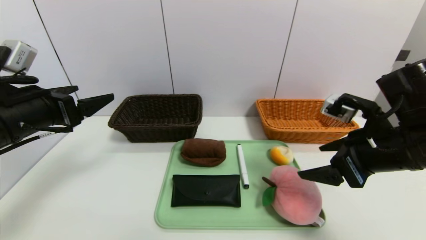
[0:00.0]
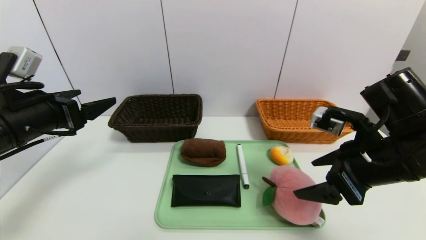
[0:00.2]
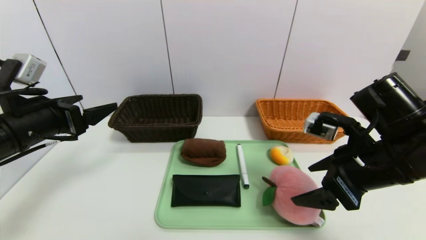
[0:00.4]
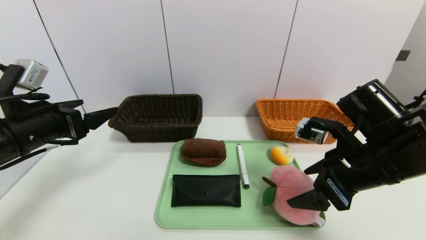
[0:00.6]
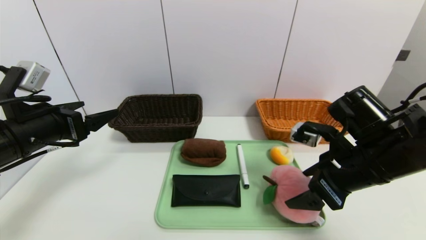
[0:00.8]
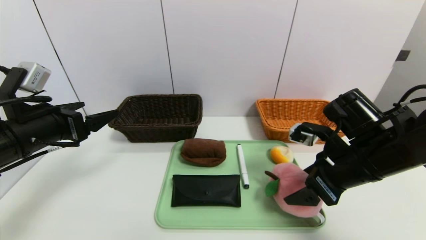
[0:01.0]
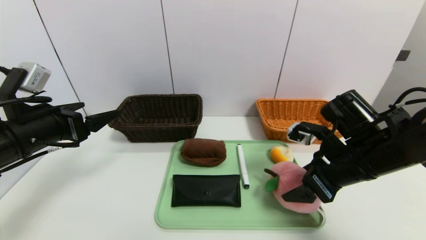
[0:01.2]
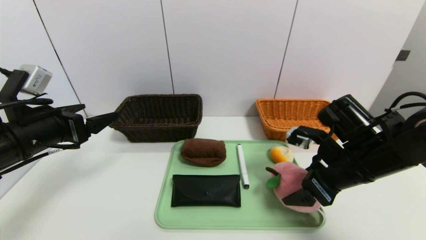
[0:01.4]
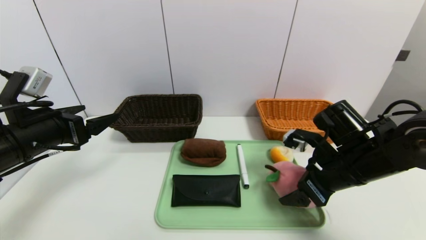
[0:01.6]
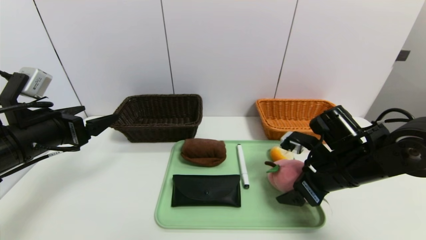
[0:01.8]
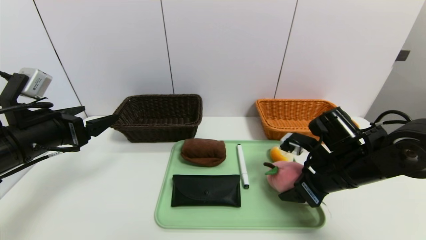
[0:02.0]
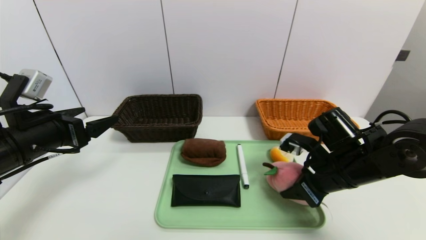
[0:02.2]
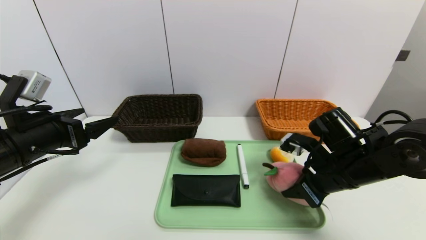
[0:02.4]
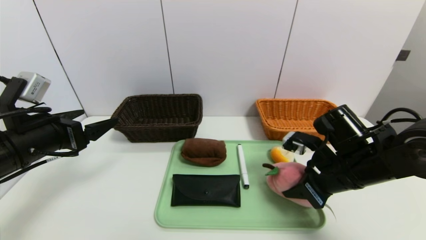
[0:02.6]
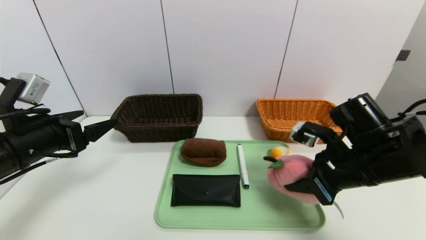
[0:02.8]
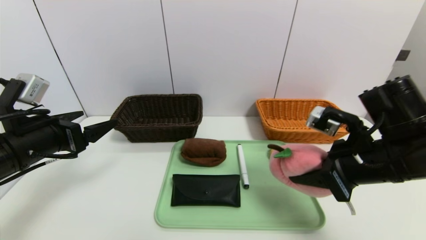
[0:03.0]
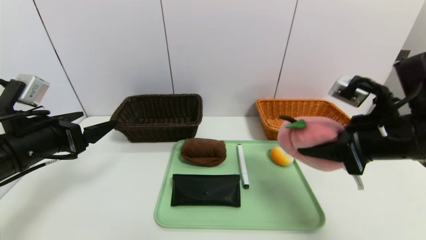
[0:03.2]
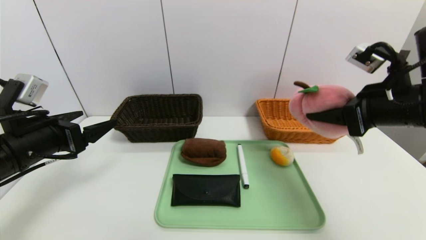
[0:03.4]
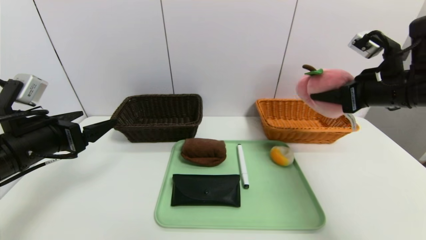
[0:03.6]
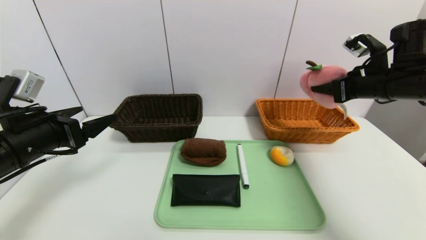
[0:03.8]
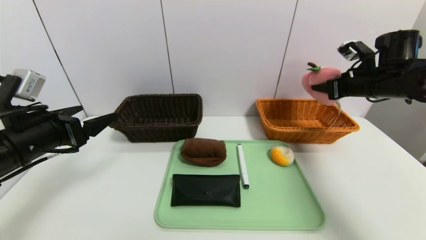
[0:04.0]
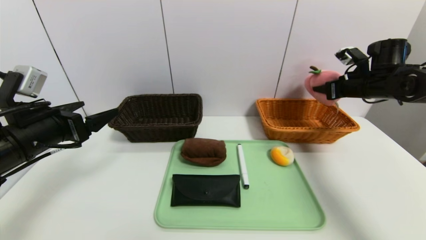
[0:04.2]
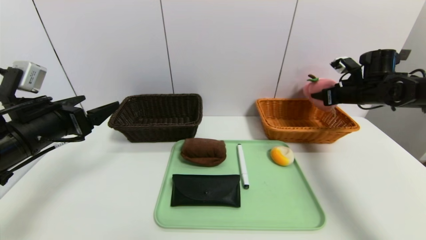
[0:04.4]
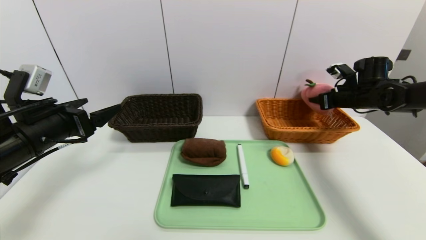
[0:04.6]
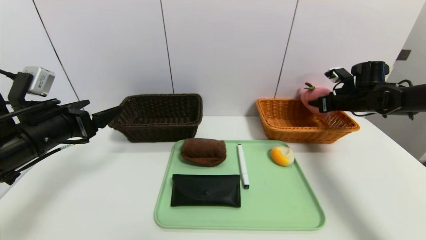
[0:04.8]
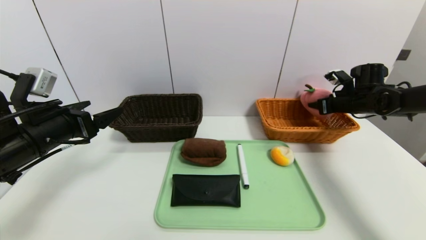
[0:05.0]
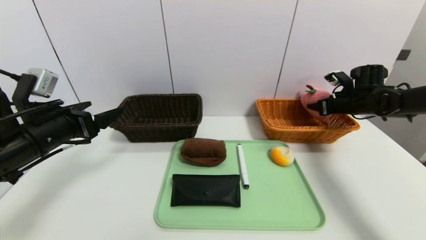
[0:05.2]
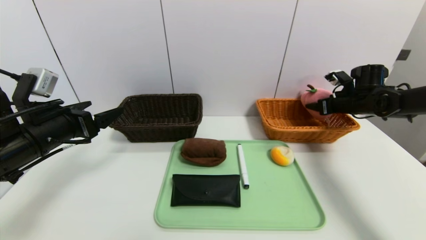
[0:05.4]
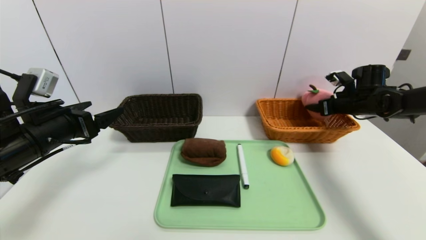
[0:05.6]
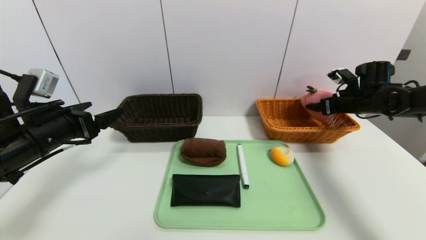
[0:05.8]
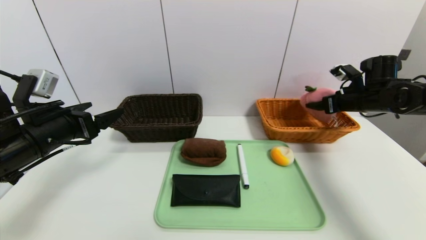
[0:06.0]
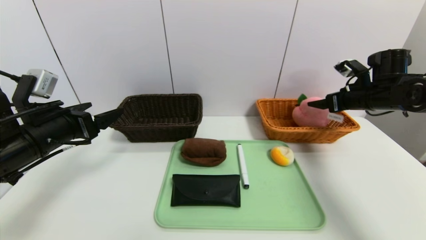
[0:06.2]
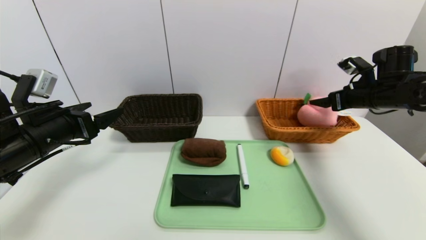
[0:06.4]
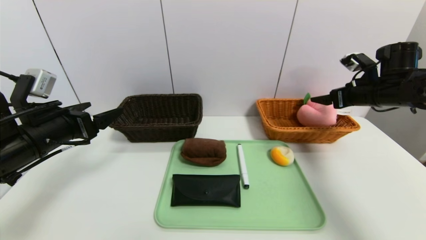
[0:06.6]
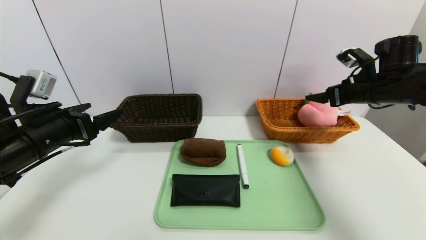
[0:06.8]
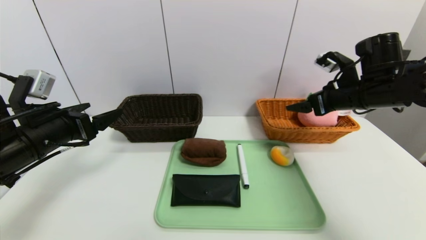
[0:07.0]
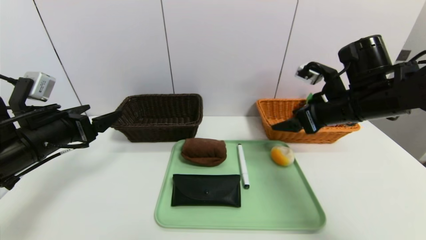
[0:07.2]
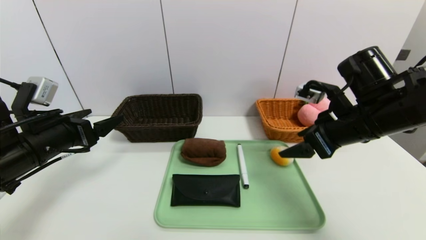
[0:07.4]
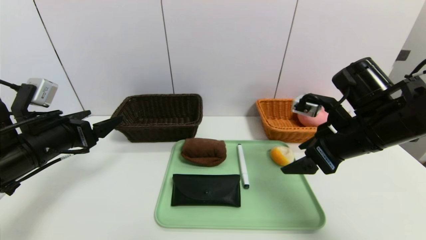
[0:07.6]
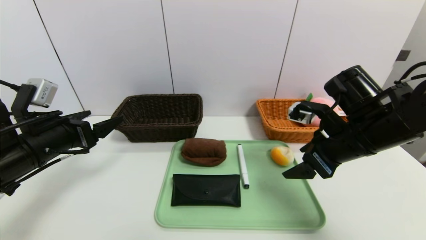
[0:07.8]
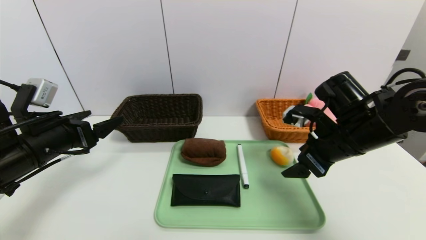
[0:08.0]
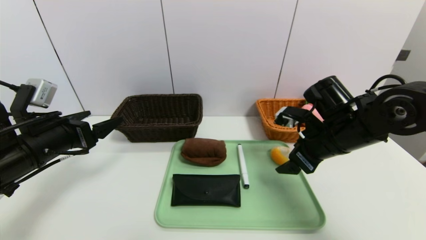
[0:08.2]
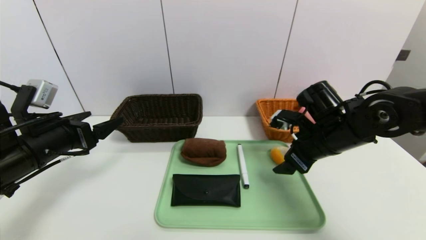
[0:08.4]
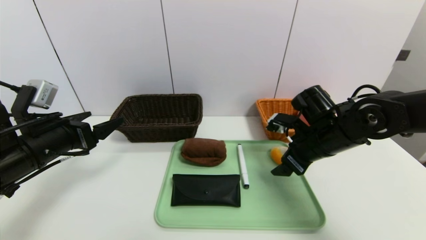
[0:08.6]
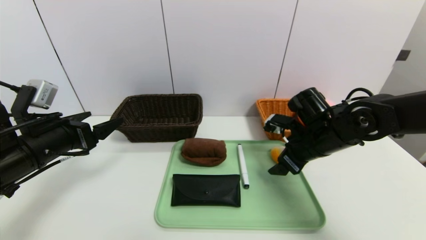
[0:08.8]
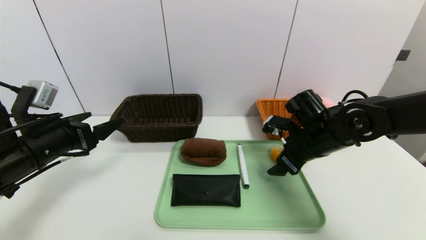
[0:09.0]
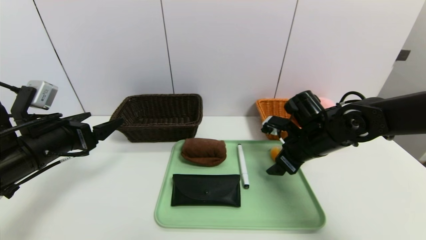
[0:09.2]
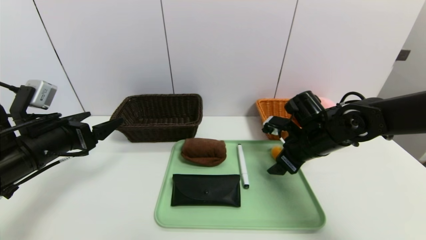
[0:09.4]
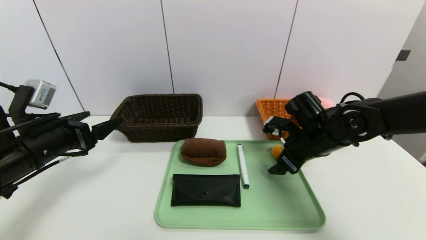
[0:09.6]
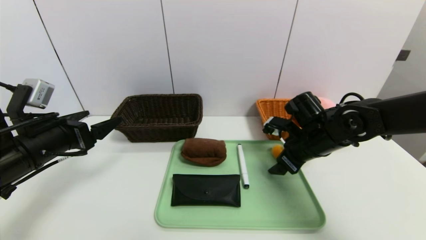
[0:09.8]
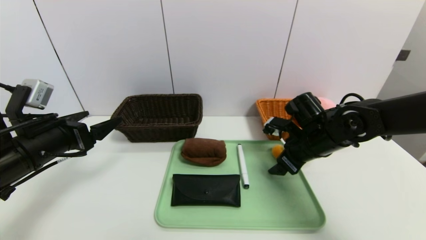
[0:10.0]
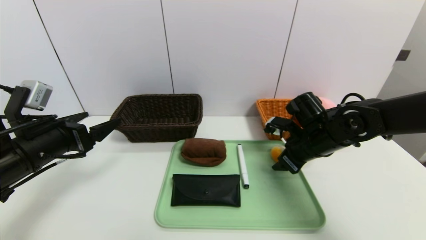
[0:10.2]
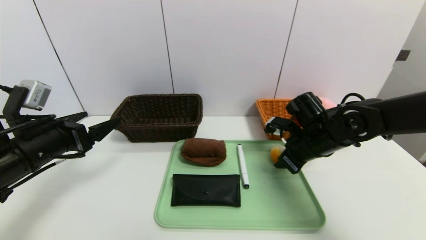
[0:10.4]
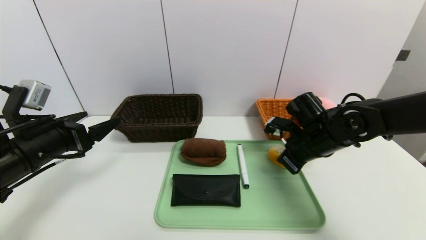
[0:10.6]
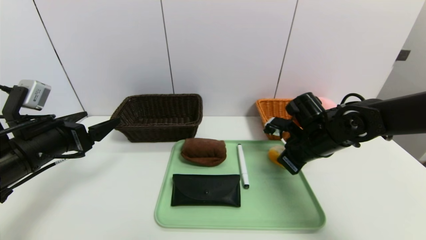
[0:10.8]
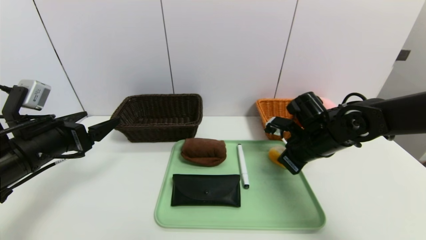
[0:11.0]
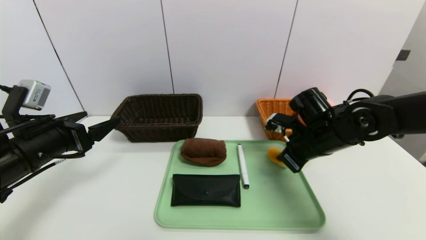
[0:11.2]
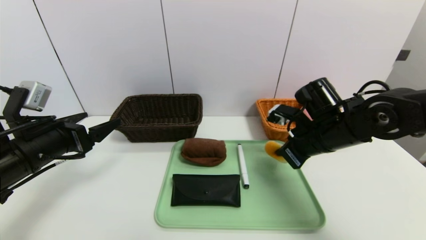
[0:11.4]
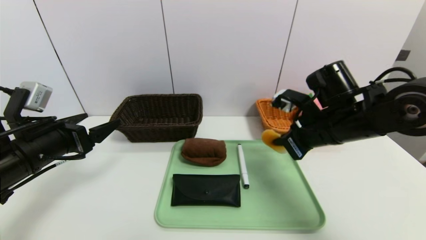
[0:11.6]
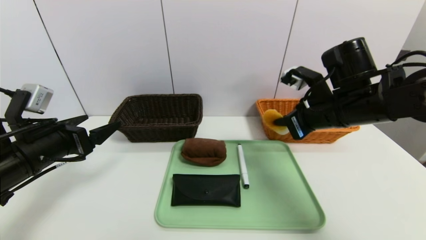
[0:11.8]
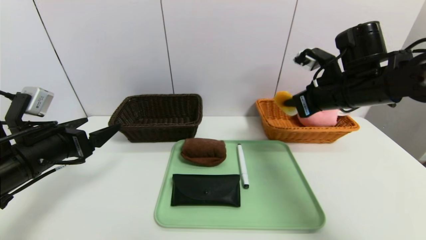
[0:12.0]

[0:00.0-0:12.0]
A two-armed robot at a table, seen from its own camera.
Task of the whole recording: place the food in the right basket with the right gripper, and place the non food items in the left basket with the left gripper.
Step, 0:00.0 to 0:06.6: Grasp the peach doll and put it in the right basket.
0:00.0 to 0:01.6: The right gripper is displaced downward by some 5 cm.
0:01.6 to 0:03.0: The right gripper is displaced upward by roughly 5 cm, and closes.
0:03.0 to 0:04.4: The right gripper goes roughly 25 cm forward and to the right.
0:04.4 to 0:06.0: The right gripper opens.
0:06.0 to 0:07.6: The right gripper moves backward and to the left, approximately 20 cm.
0:07.6 to 0:09.0: The right gripper is displaced downward and forward by roughly 10 cm.
0:09.0 to 0:10.4: The right gripper closes up.
0:10.4 to 0:12.0: The right gripper is displaced upward by some 10 cm, and closes up.

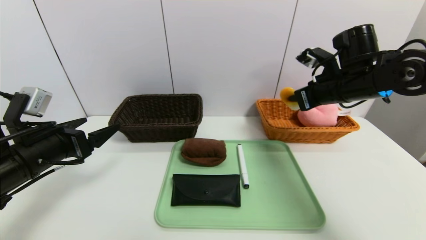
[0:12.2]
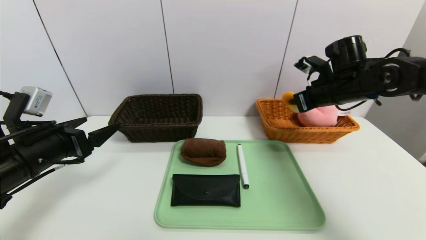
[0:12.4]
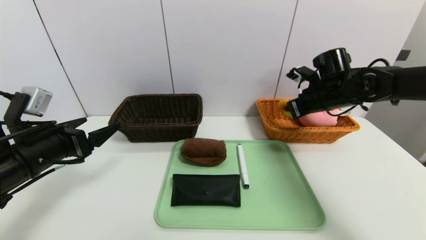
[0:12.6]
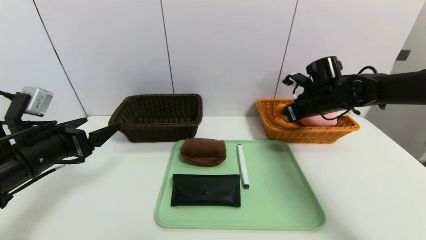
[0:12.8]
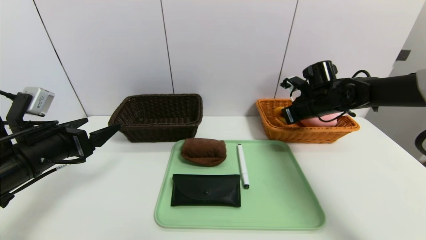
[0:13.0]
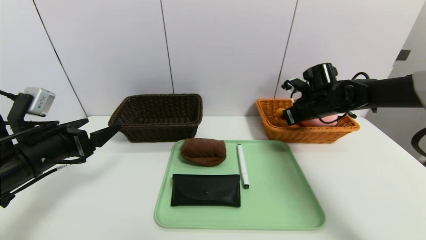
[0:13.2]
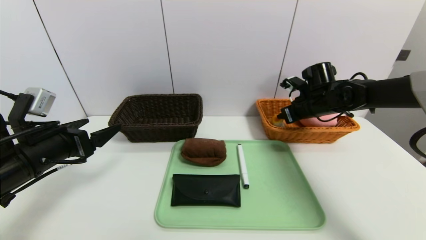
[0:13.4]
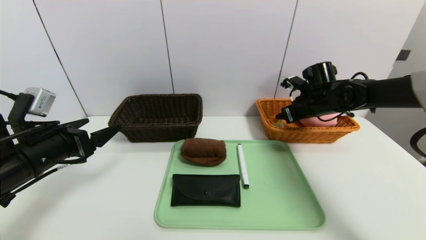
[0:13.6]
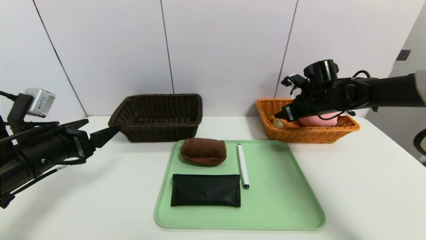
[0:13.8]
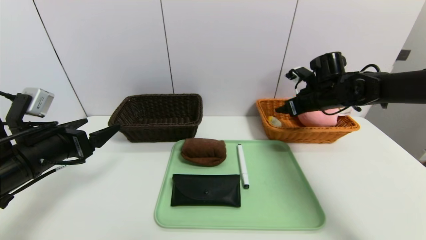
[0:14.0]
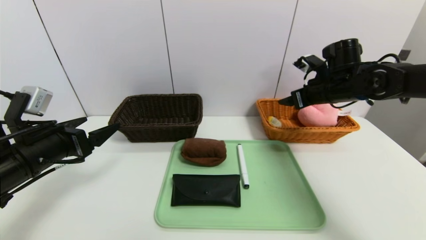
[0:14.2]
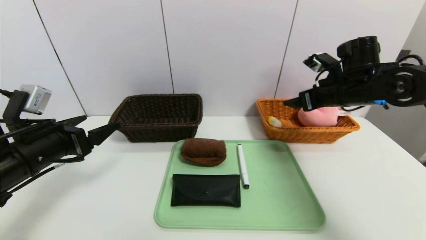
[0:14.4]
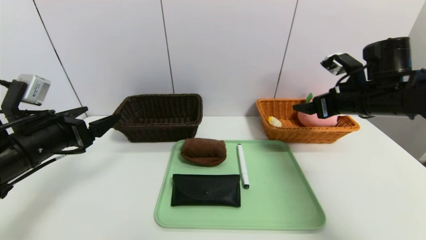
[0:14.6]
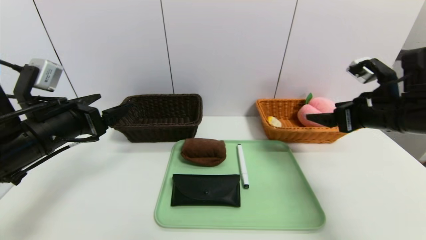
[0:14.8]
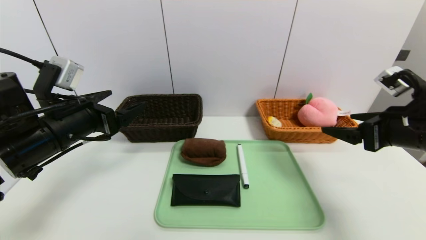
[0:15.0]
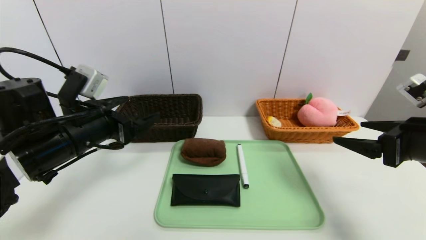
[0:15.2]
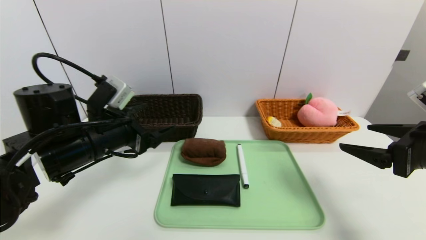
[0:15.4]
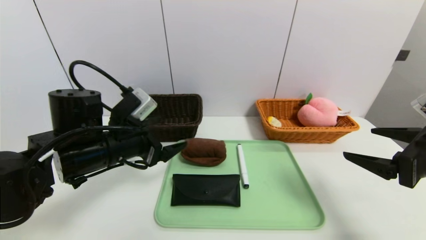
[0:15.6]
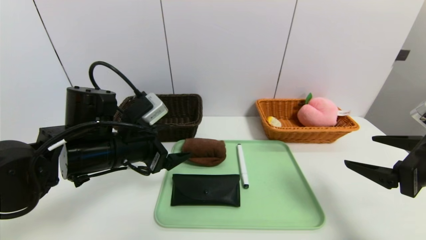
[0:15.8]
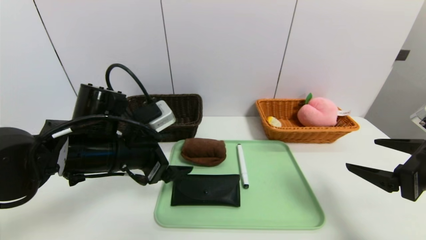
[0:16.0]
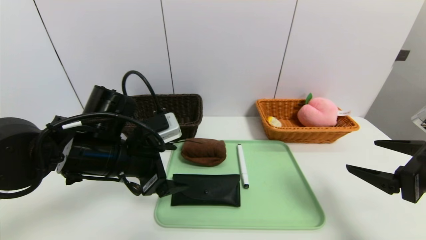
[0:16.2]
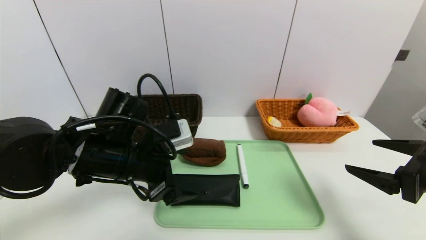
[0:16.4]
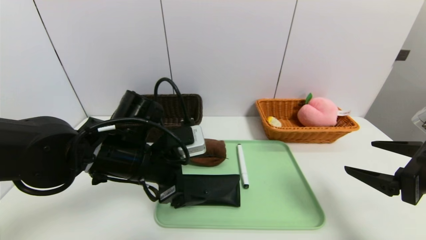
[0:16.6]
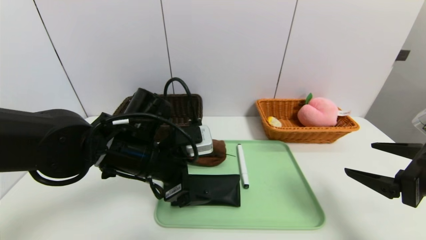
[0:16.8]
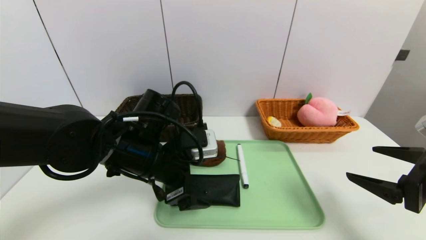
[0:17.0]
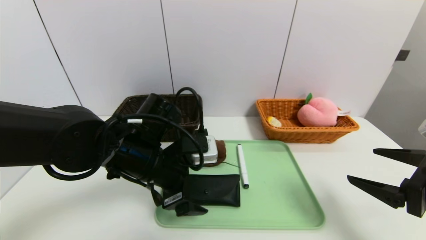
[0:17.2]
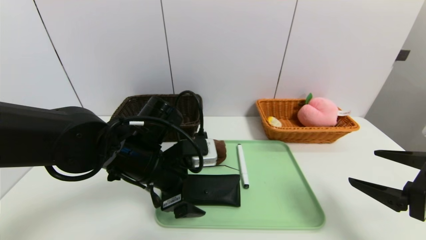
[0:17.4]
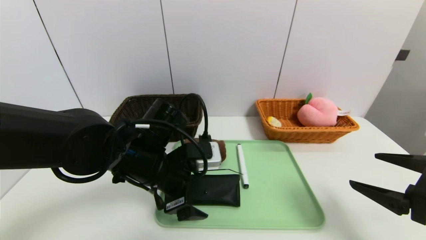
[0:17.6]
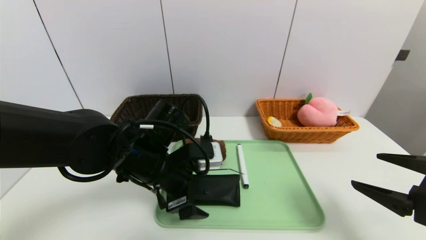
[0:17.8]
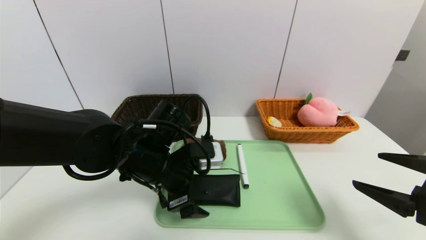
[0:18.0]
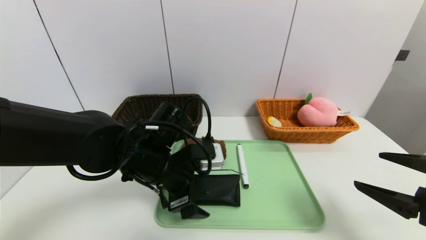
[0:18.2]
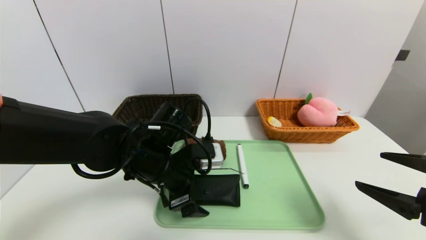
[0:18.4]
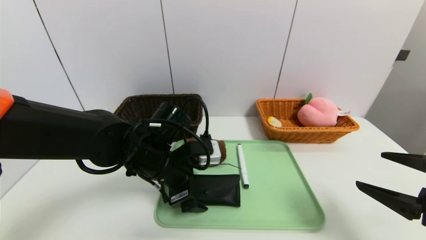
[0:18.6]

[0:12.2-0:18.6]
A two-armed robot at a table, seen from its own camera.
Task of the whole recording: place the food in the right basket with the right gripper, and place the non food items in the left basket with the left gripper.
Step, 0:12.2 to 0:14.2: Grasp the egg yolk pastry and put it in the right basket.
0:12.2 to 0:13.8: The right gripper goes some 10 cm forward and downward, and opens.
0:13.8 to 0:15.4: The left gripper shifts approximately 10 cm to the right; the right gripper goes some 25 cm backward.
0:15.4 to 0:17.0: The left gripper shifts some 10 cm to the right.
0:17.0 to 0:18.6: The grippers move only a little.
